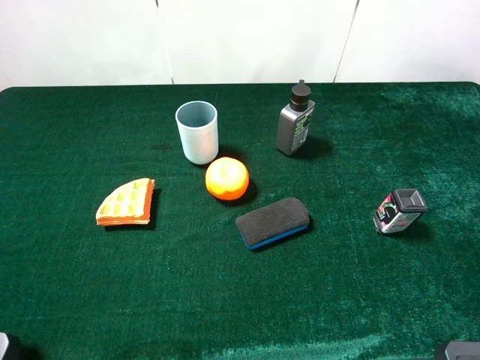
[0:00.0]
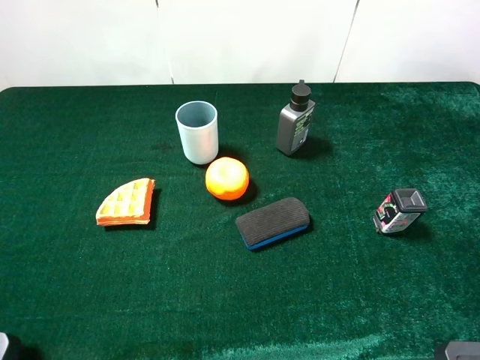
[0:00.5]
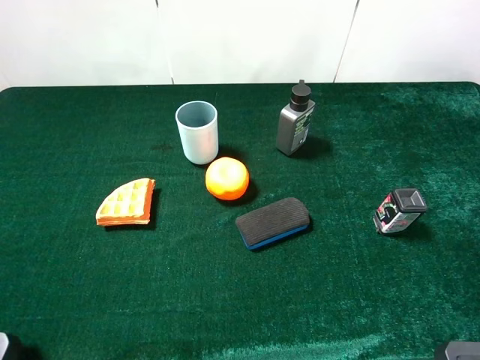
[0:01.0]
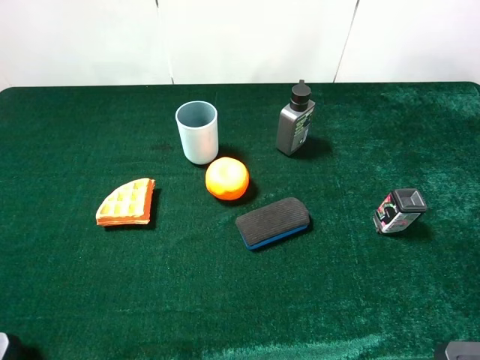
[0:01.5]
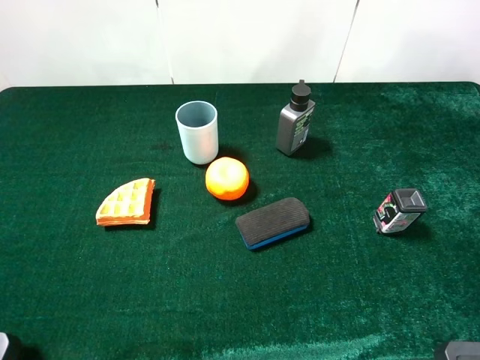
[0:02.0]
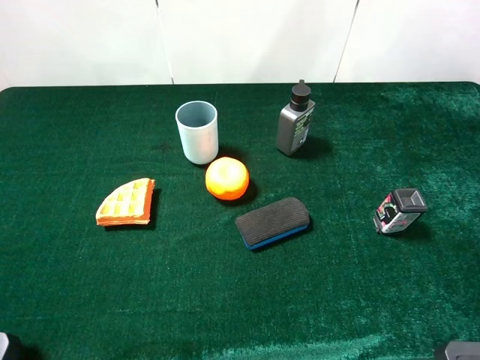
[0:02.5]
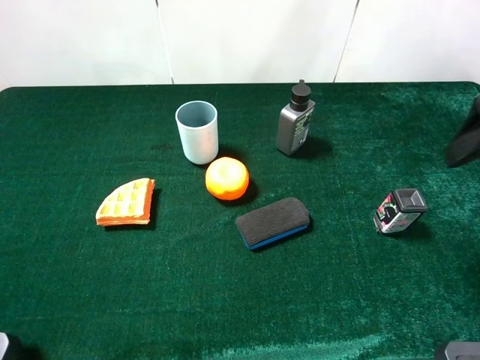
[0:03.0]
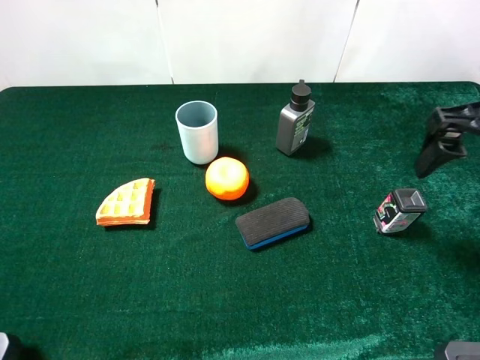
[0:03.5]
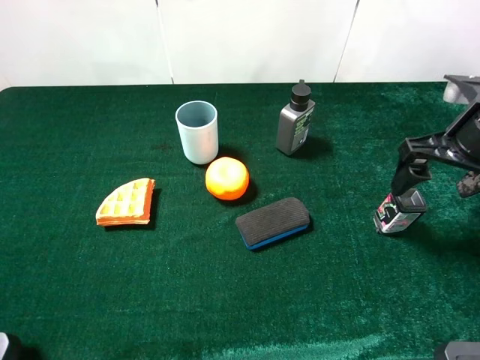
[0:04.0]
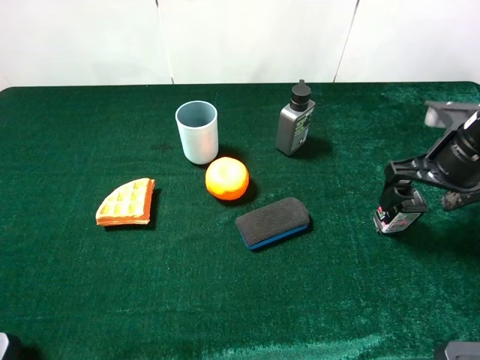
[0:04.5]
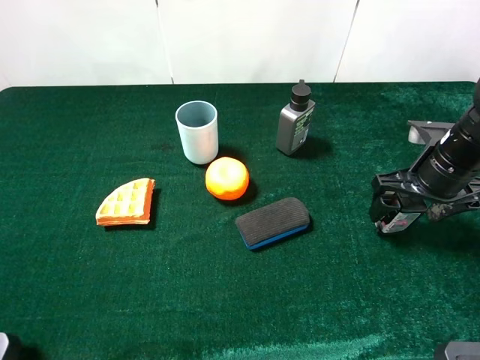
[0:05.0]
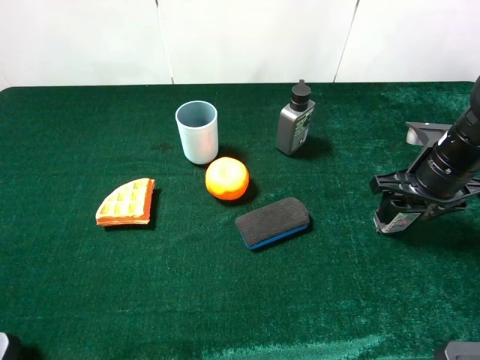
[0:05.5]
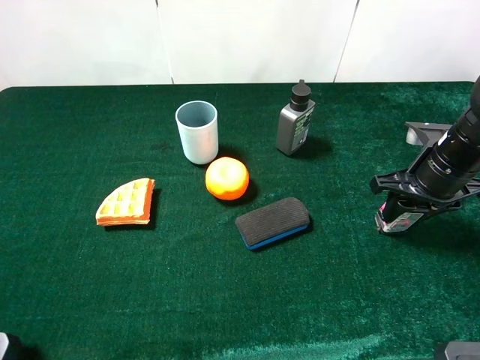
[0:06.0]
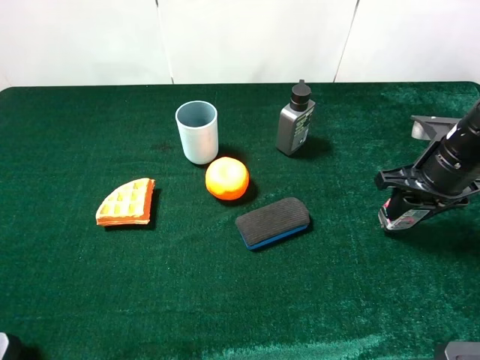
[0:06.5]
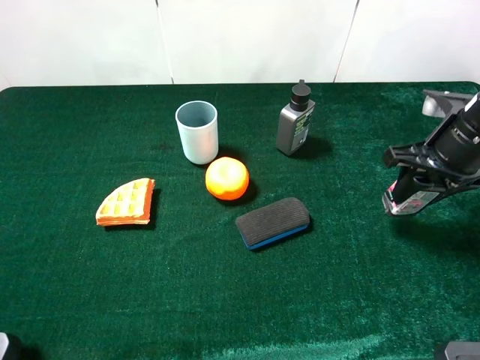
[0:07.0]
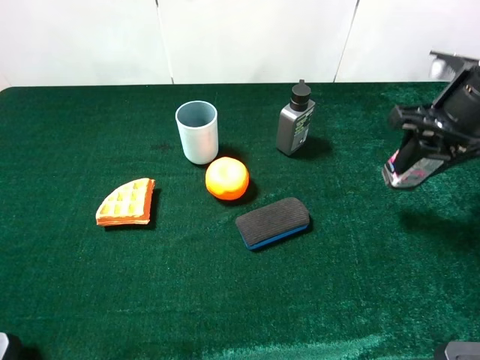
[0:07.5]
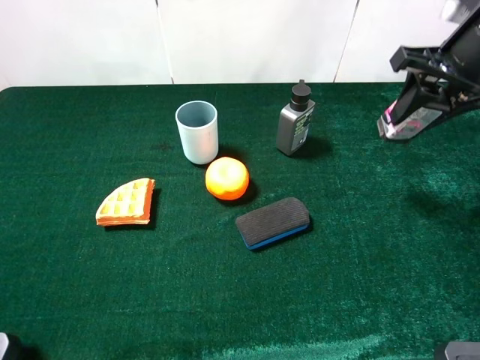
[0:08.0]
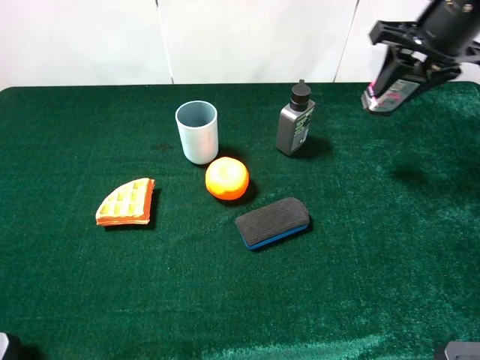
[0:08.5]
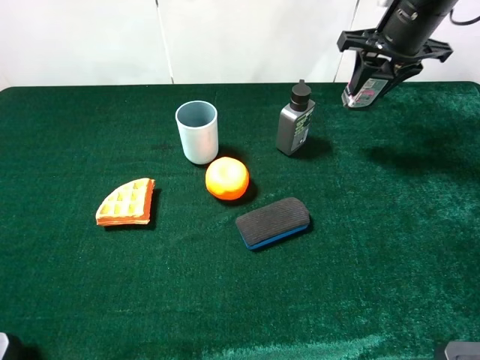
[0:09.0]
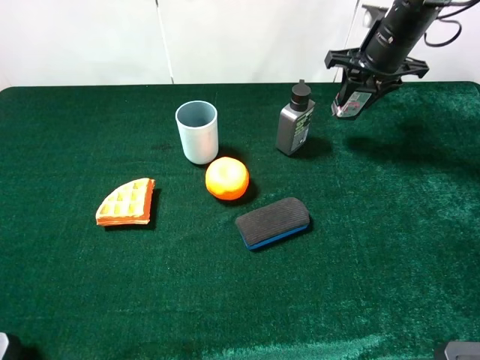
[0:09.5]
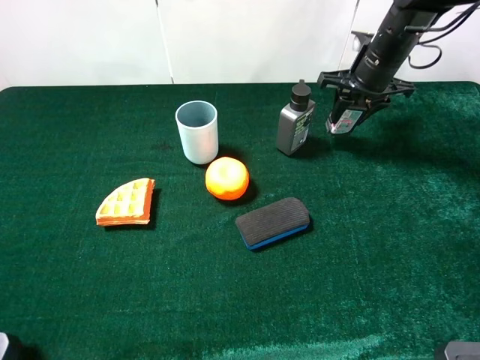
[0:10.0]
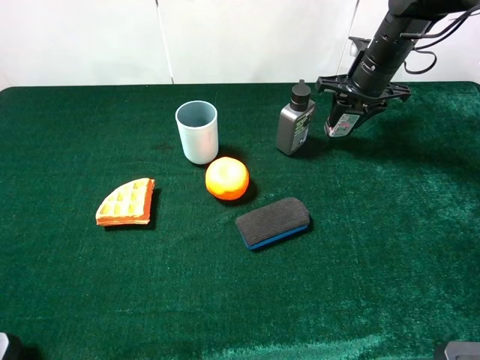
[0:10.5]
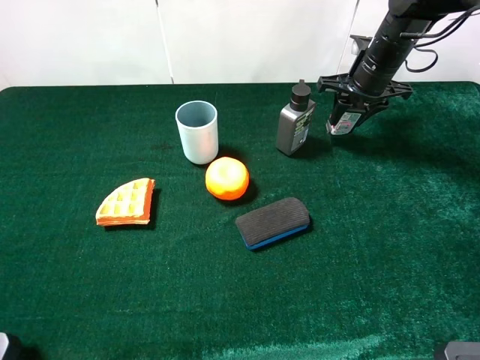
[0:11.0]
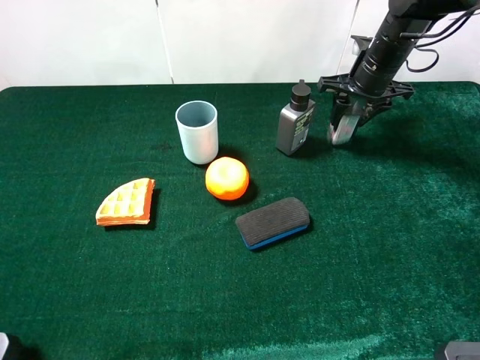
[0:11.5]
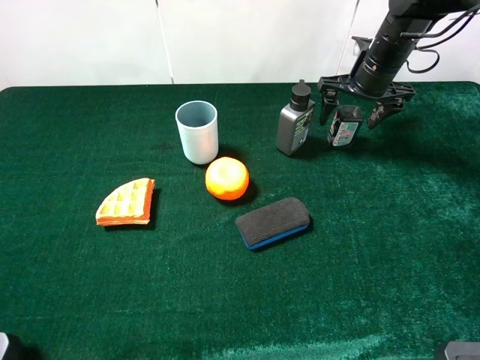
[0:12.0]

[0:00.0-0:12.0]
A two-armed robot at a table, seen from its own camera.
Task of the whole recording: the gripper move the object.
Step, 0:00.0 to 0:06.0: Grasp the square chewing gun with the right gripper.
0:02.0 to 0:04.0: The right gripper shifts roughly 20 cm forward and downward.
0:04.0 to 0:06.0: The right gripper is displaced downward by roughly 5 cm, and closes up.
0:06.0 to 0:08.0: The right gripper travels upward by about 15 cm.
0:08.0 to 0:10.0: The right gripper goes roughly 15 cm forward and downward.
0:10.0 to 0:12.0: The right gripper opens up.

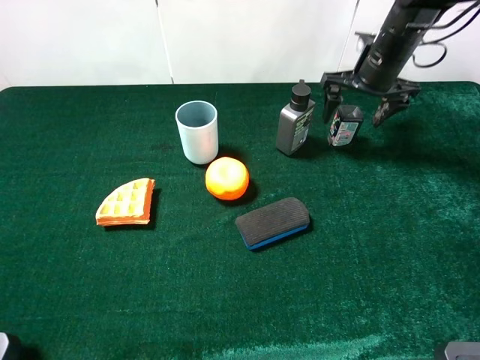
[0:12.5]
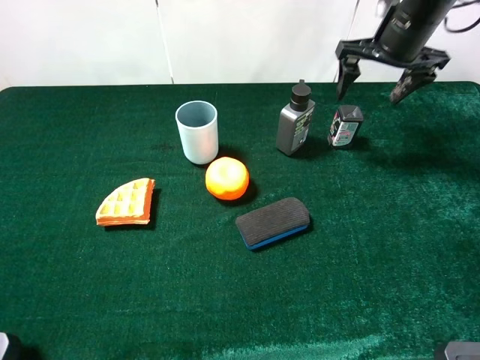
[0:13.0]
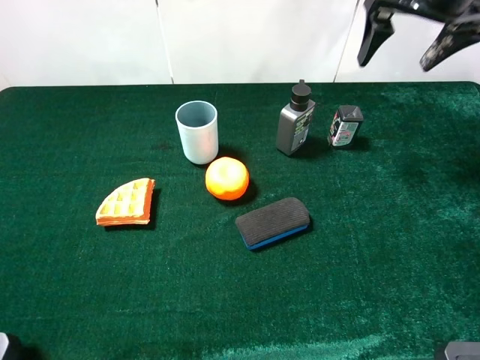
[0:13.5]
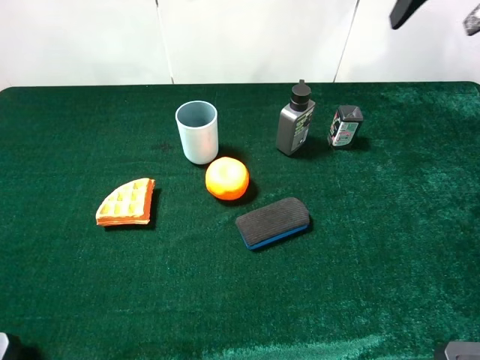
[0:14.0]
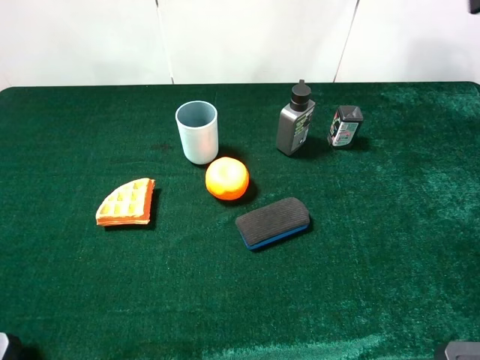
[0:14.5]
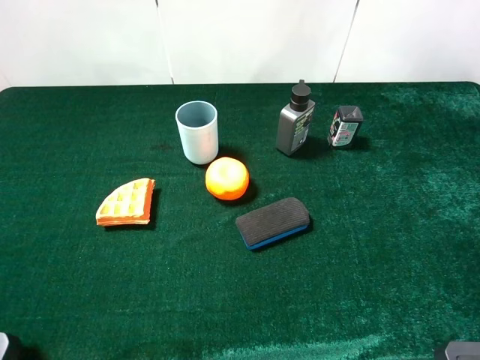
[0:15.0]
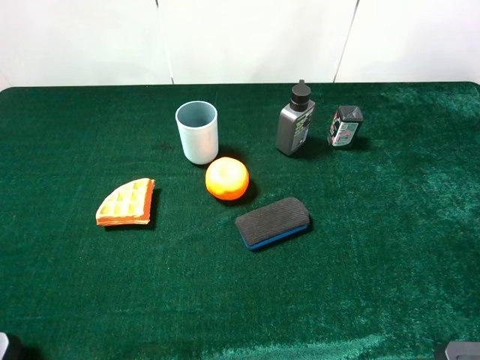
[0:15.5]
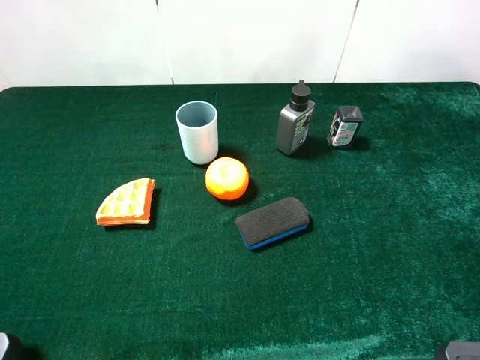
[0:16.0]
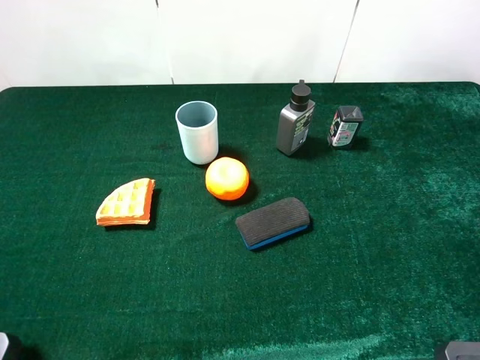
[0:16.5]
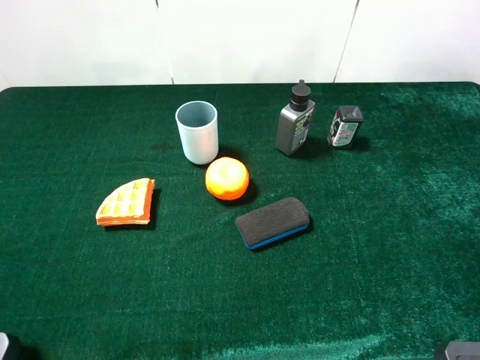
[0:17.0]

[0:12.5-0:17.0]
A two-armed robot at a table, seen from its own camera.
Task of the whole recording: the gripper move the object.
0:12.5 to 0:14.5: The right gripper travels upward and backward by about 35 cm.

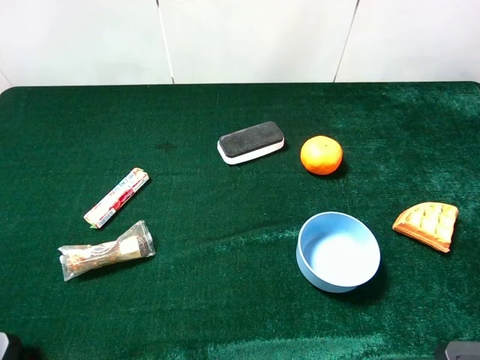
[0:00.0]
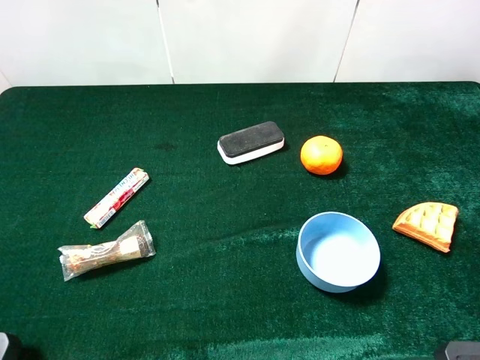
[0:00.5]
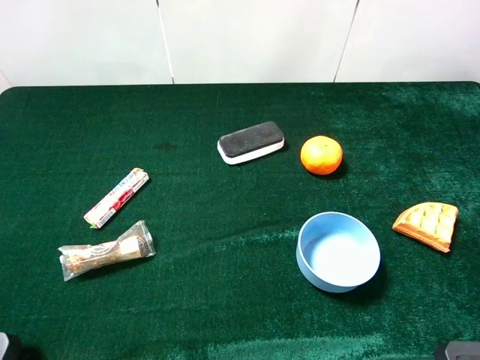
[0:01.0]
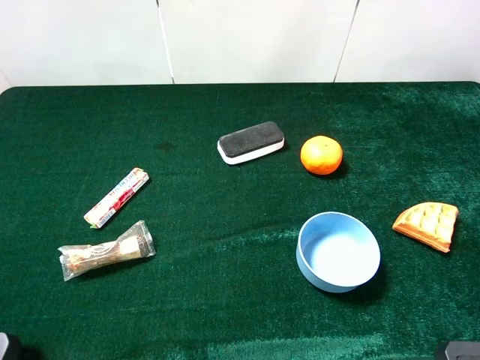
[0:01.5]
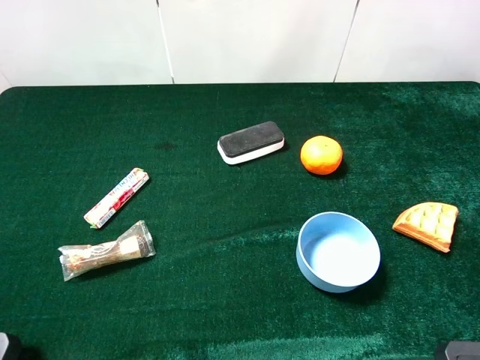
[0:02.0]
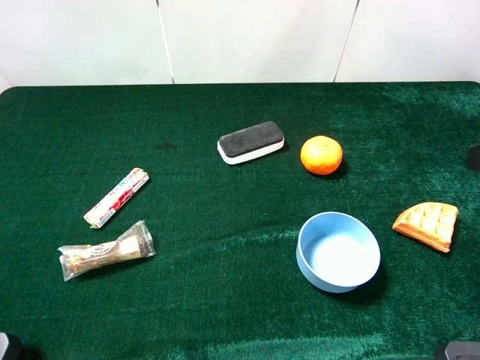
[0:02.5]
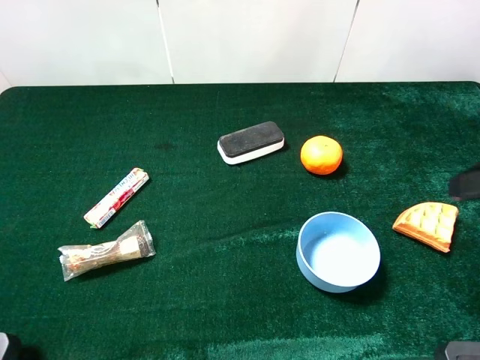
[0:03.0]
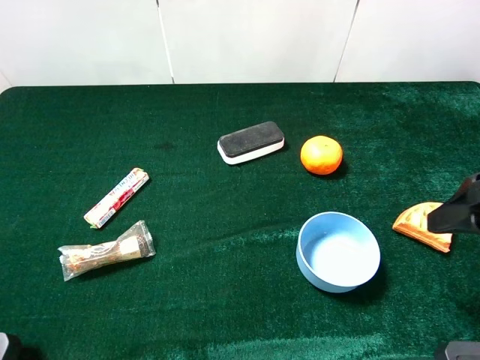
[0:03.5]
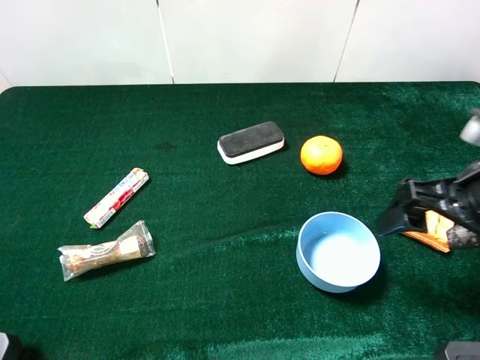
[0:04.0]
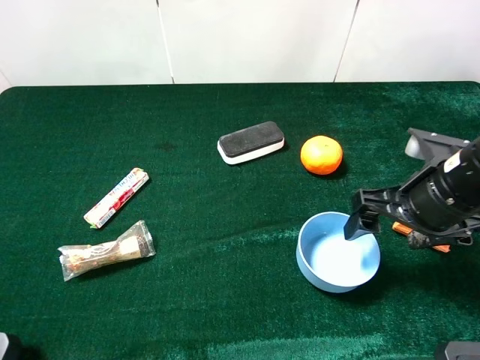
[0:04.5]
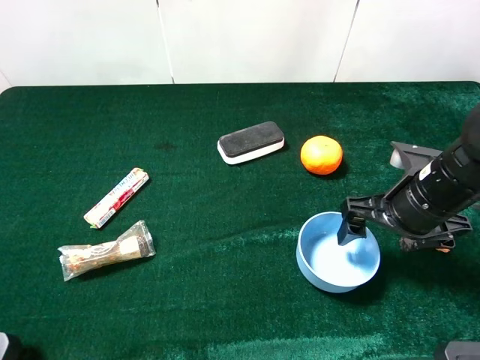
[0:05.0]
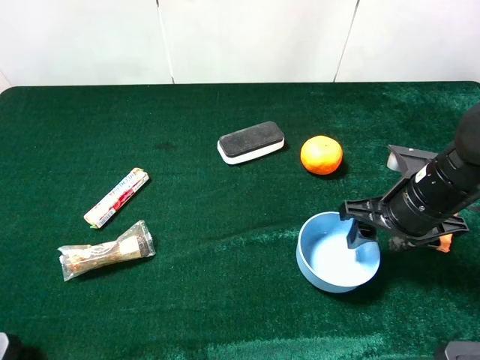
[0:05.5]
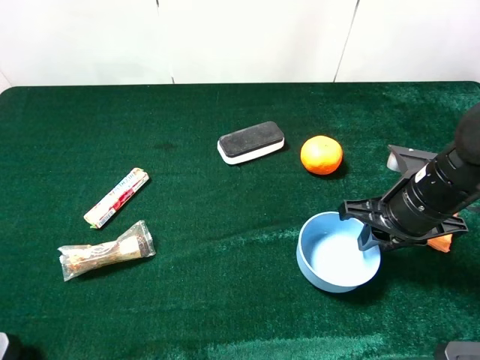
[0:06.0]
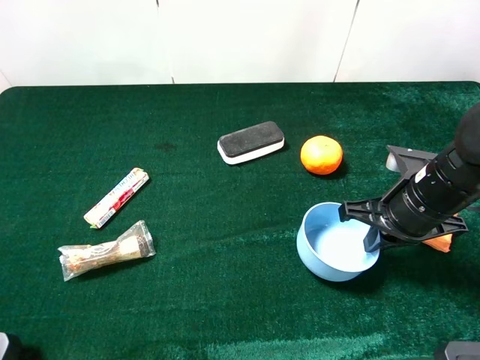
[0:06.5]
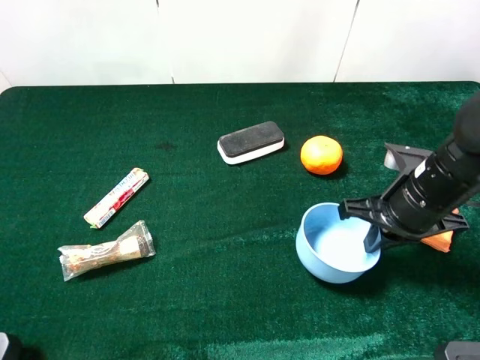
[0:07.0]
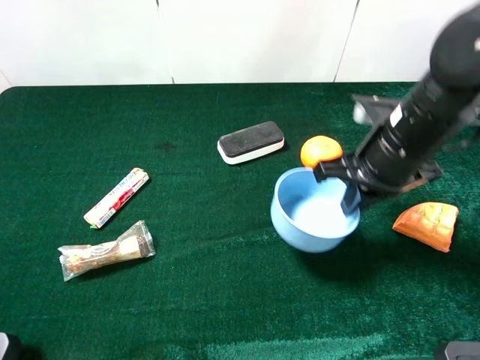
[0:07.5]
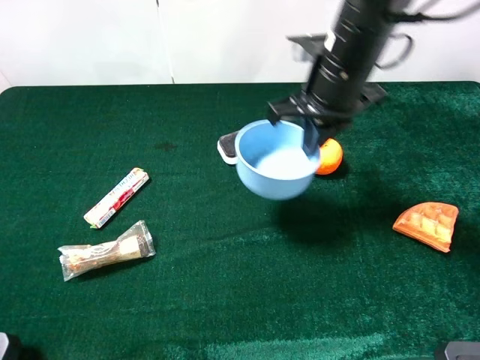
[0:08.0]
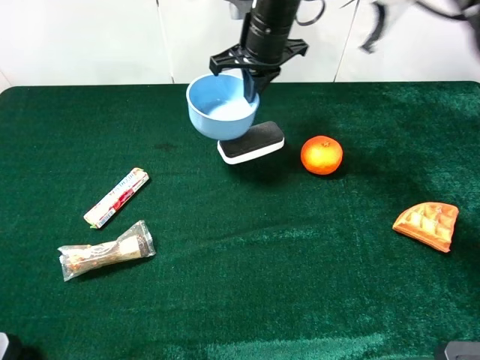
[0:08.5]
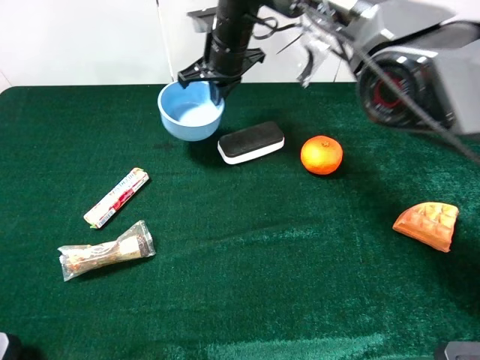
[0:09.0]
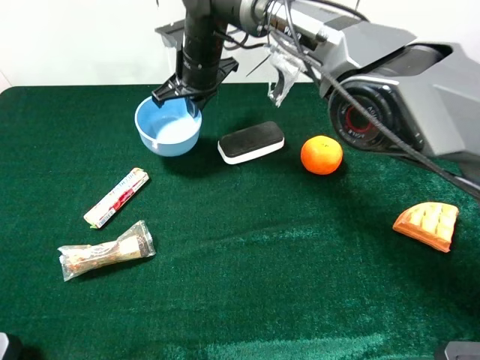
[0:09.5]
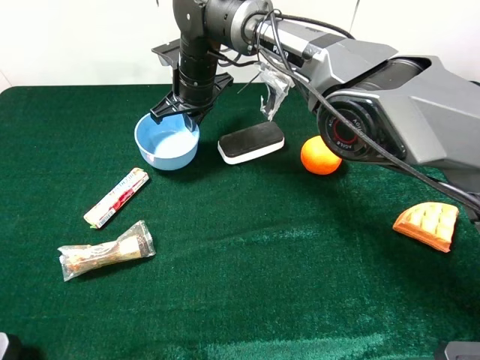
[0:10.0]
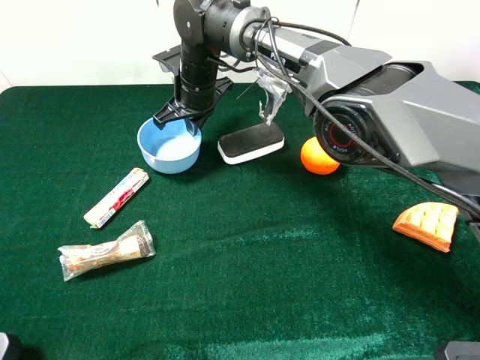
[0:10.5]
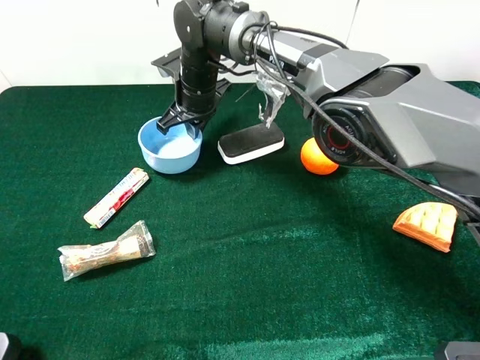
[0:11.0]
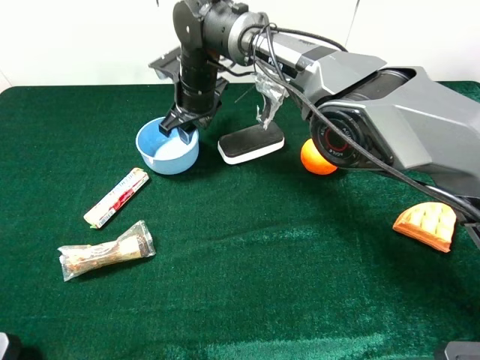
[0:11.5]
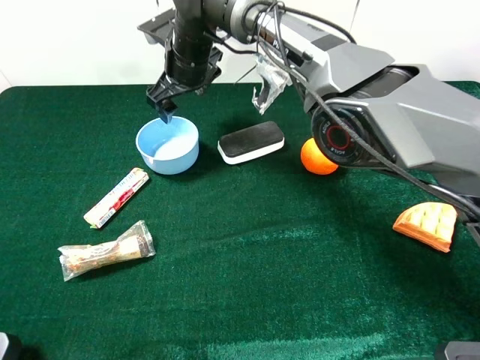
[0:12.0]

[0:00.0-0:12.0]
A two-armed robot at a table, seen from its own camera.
Task of the whole recording: the gripper move the object.
Step, 0:00.0 to 0:06.0: Grasp the blue bowl with the right gripper.
Step, 0:06.5 to 0:11.0: Place the blue bowl on the table with the right gripper.
0:02.0 to 0:04.0: The right gripper shifts roughly 15 cm forward and downward.
0:04.0 to 0:06.0: The right gripper heads downward, covering approximately 10 cm, and closes its fingers.
0:06.0 to 0:08.0: The right gripper shifts about 20 cm to the left, forward and upward.
0:08.0 to 0:10.0: The right gripper travels to the left, forward and downward by about 20 cm.
0:10.0 to 0:12.0: The right gripper opens its fingers.
